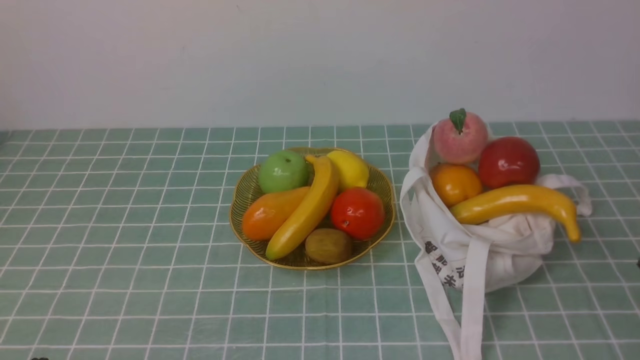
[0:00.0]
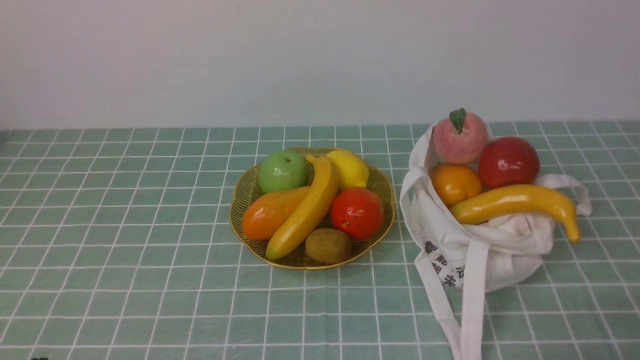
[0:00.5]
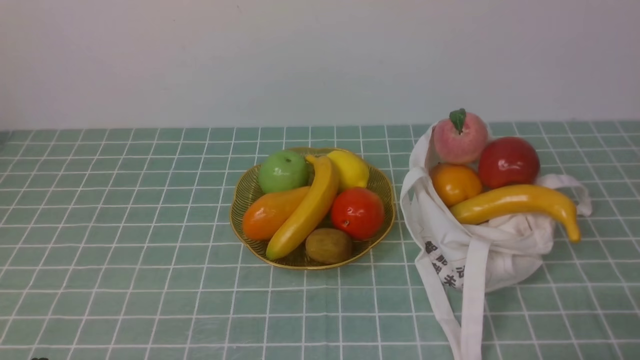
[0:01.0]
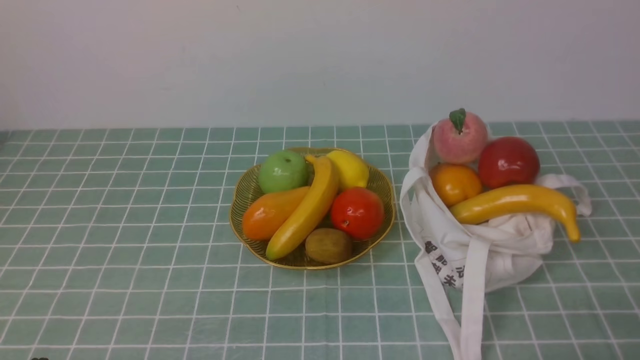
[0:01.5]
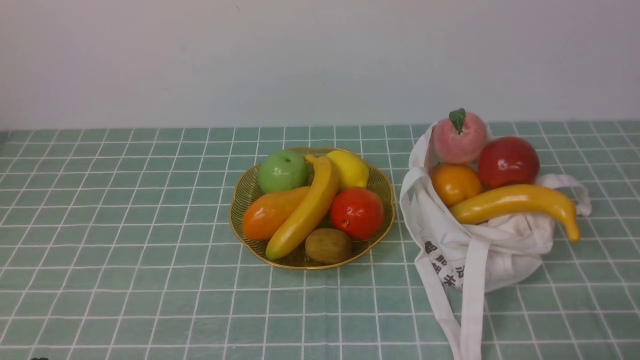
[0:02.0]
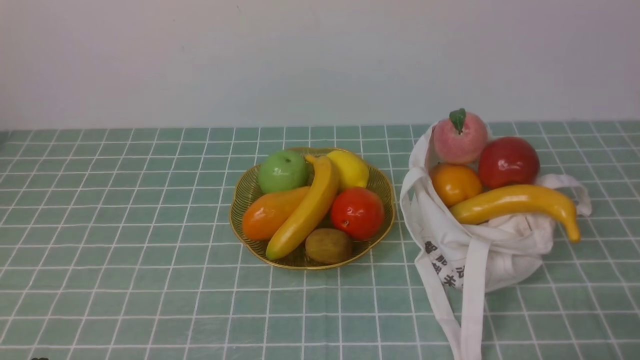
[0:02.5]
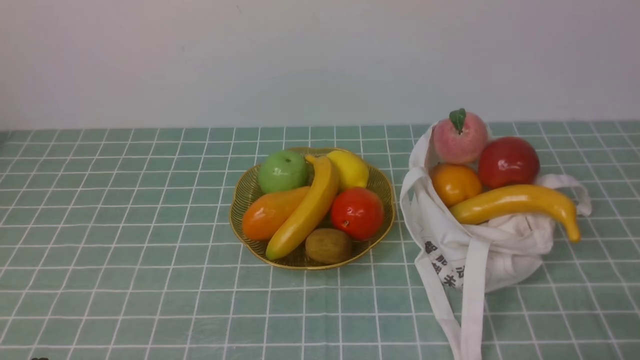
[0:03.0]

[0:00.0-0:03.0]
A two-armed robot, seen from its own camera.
0:01.5 to 0:03.0: The two grippers keep their place.
